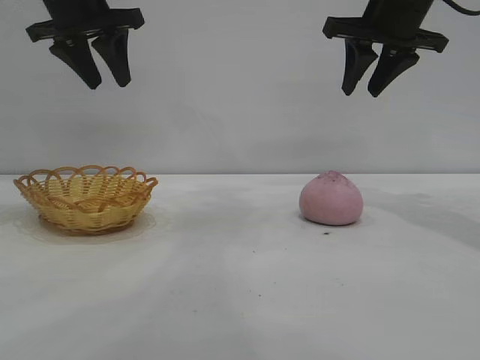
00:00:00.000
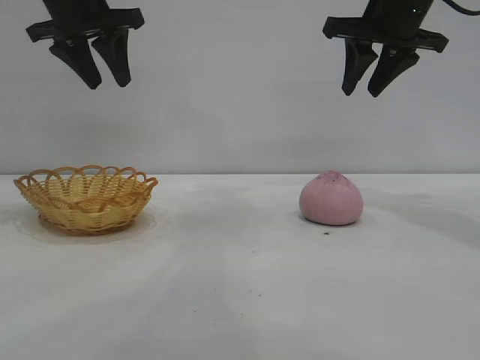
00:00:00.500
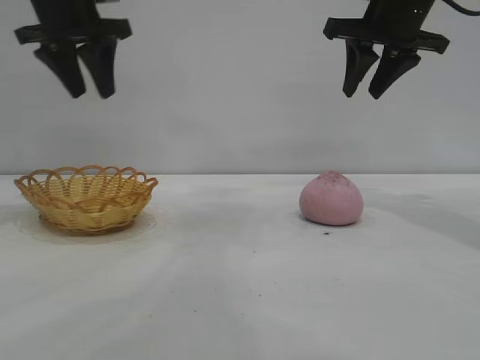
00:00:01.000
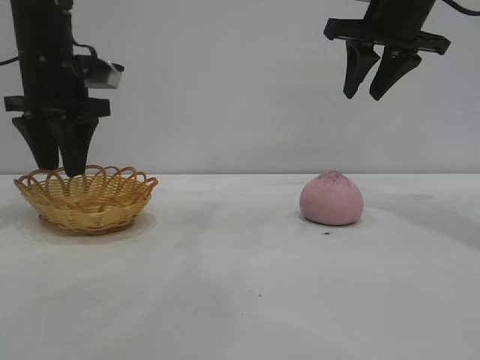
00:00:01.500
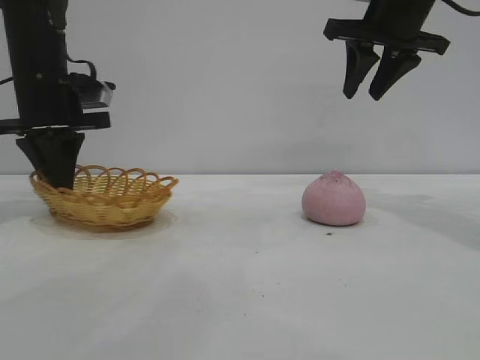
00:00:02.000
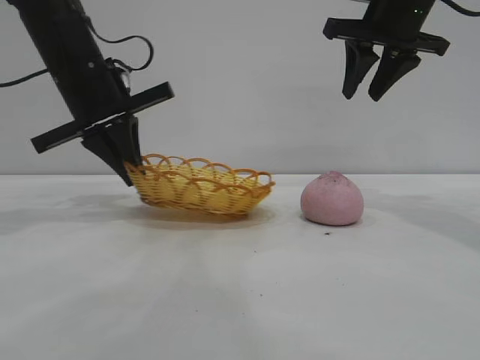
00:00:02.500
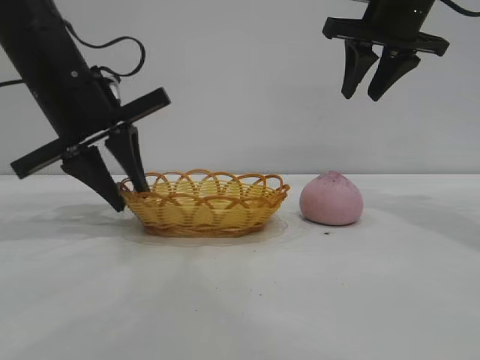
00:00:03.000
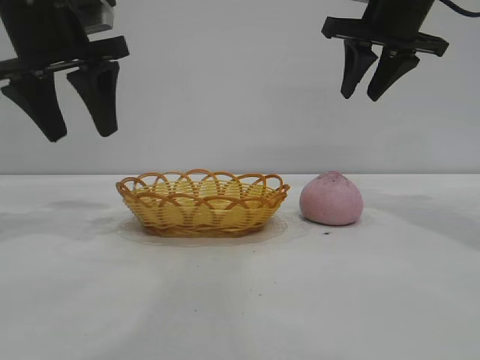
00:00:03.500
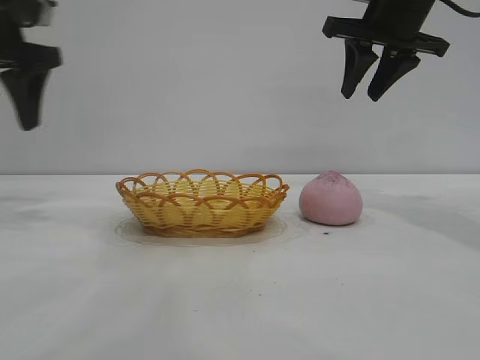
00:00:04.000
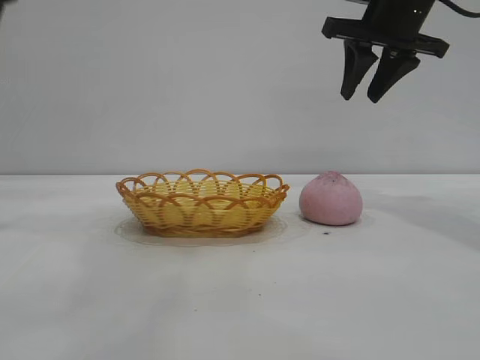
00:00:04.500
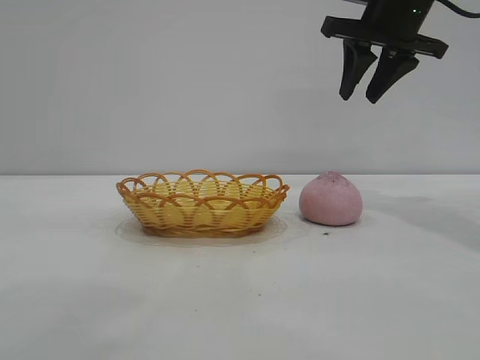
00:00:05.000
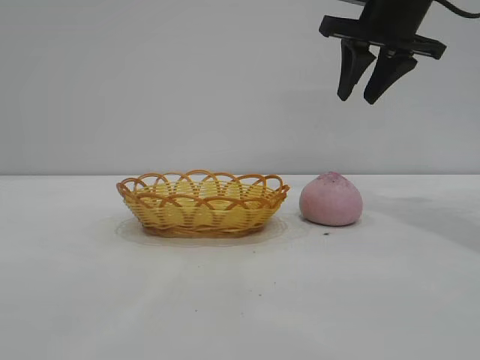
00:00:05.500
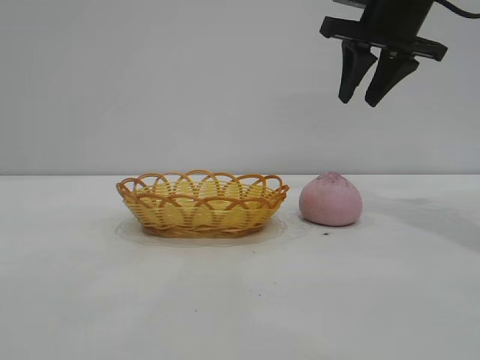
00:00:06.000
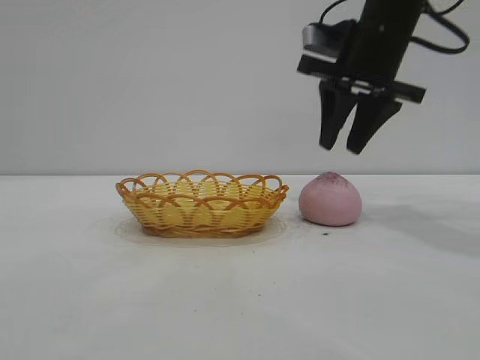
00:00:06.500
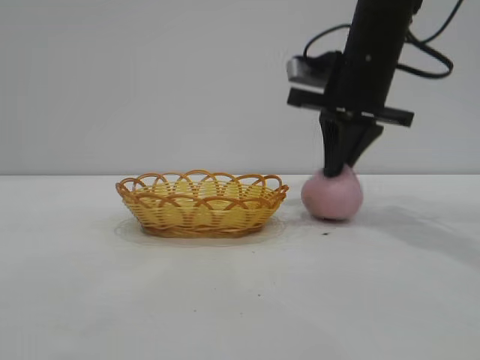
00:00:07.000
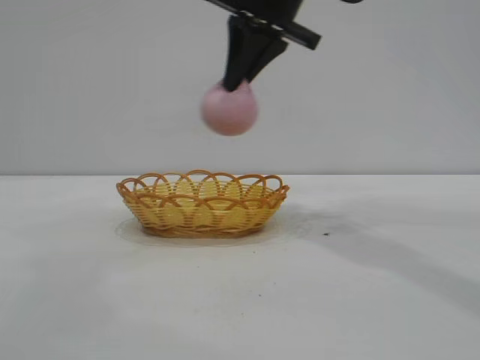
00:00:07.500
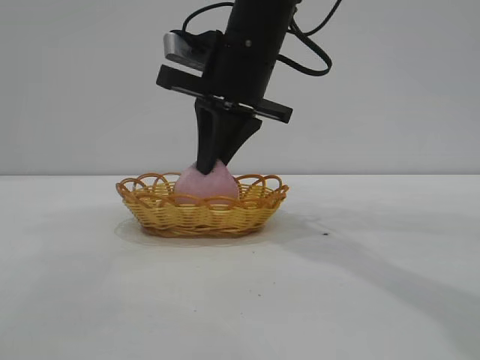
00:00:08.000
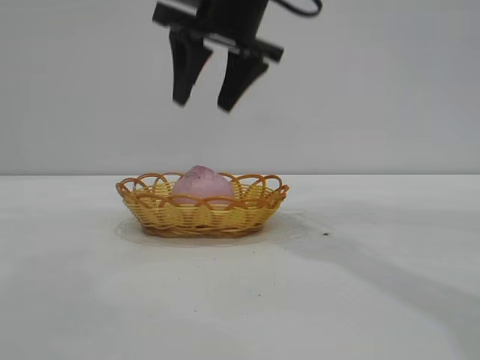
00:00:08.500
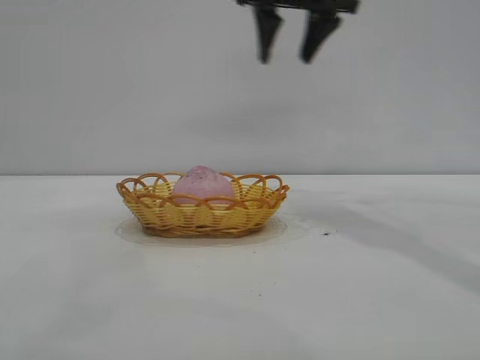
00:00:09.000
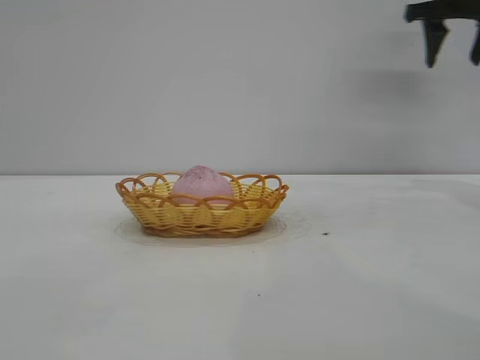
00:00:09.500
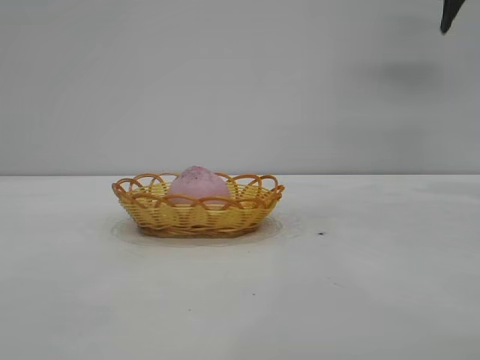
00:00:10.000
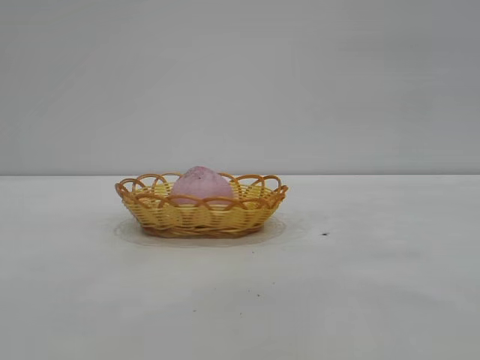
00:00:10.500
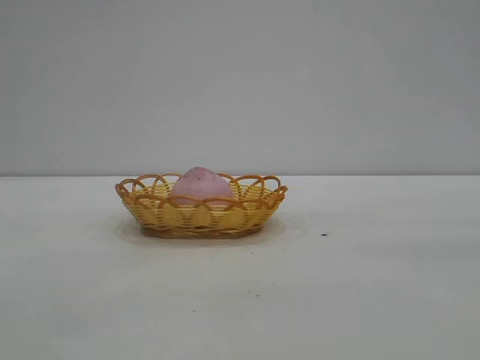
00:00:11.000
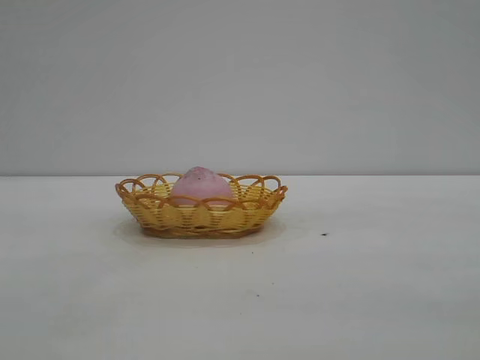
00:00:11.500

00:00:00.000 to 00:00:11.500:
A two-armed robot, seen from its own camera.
Task of the whole recording: pick up the peach and put it into the basket.
Step, 00:00:00.000 to 00:00:03.500: Move the basket to the center of view.
Step, 00:00:04.000 to 00:00:07.000: Pick up the peach.
Step, 00:00:07.500 to 00:00:08.500: place the peach into the basket.

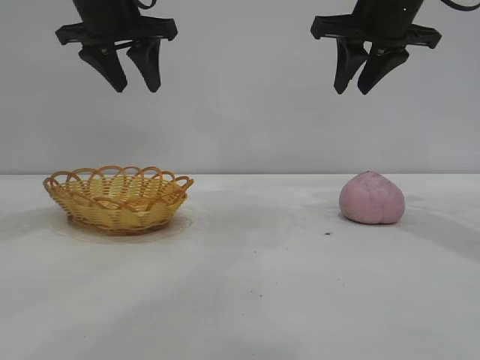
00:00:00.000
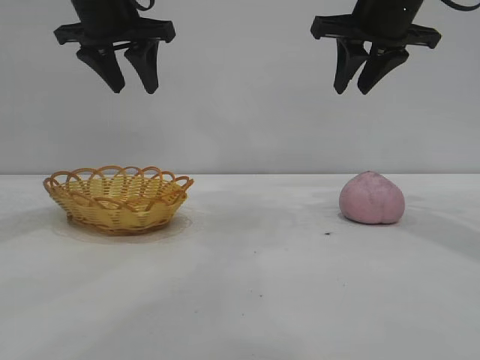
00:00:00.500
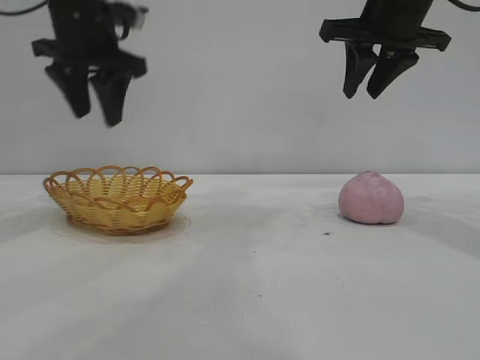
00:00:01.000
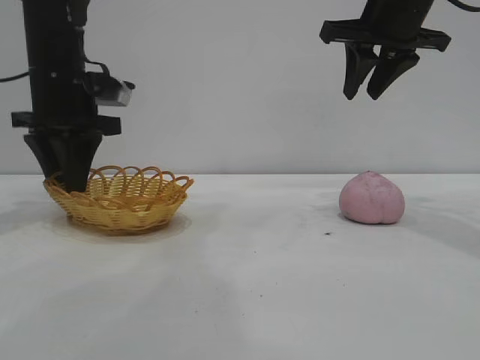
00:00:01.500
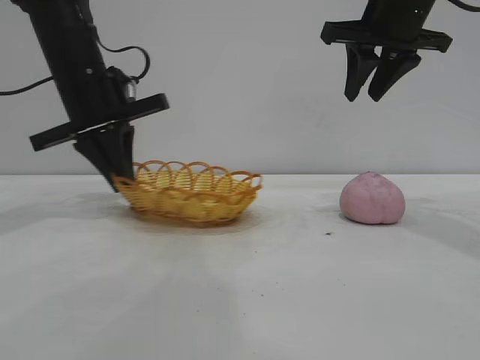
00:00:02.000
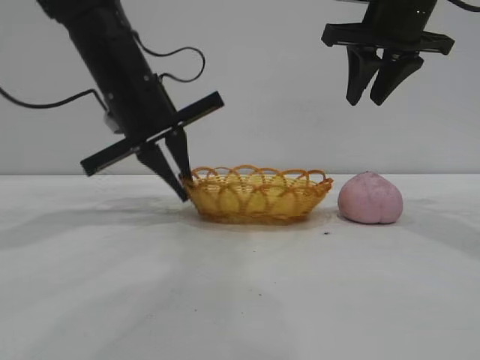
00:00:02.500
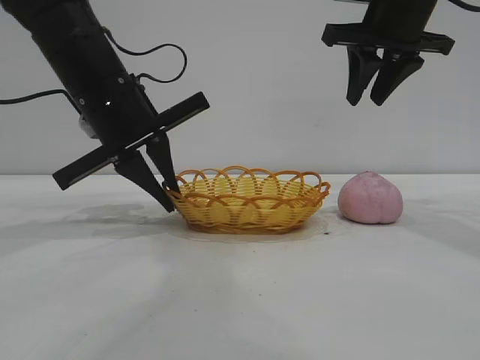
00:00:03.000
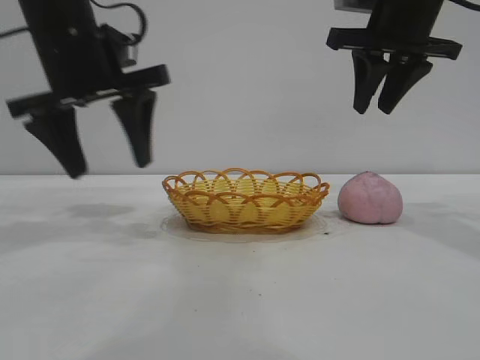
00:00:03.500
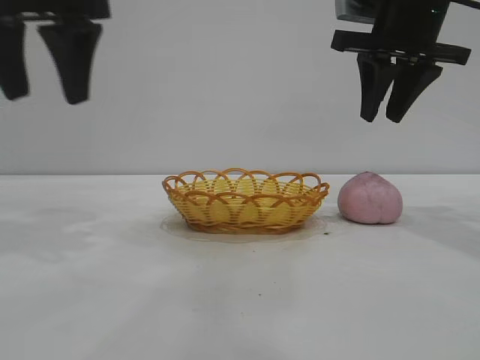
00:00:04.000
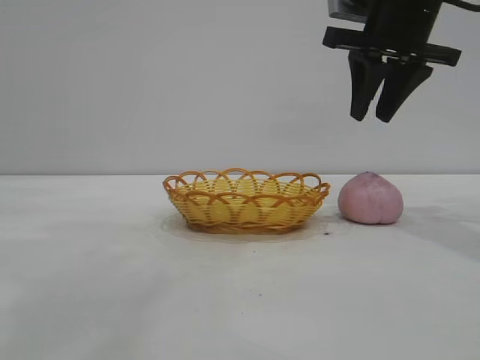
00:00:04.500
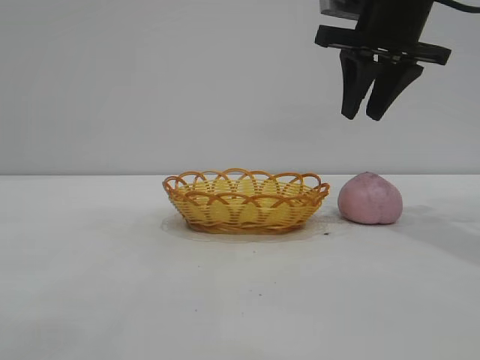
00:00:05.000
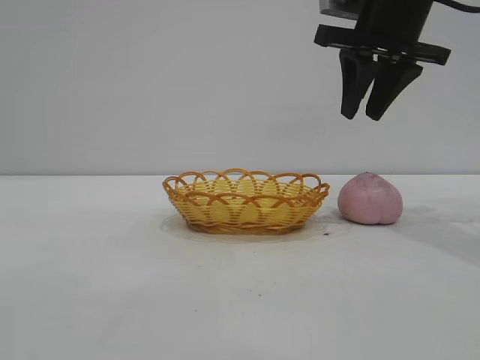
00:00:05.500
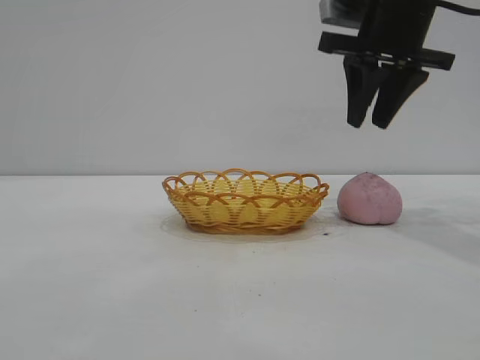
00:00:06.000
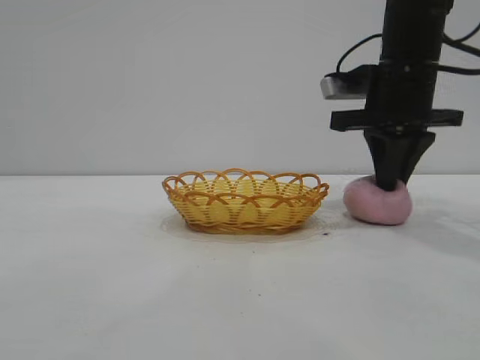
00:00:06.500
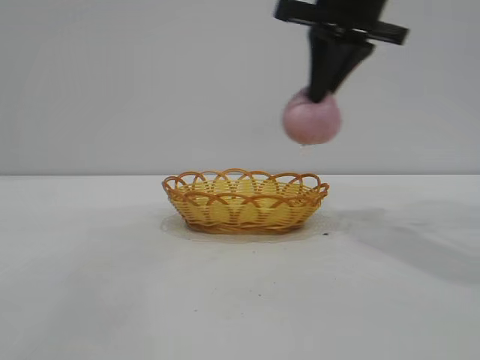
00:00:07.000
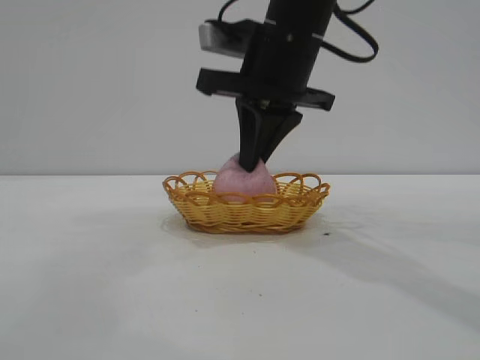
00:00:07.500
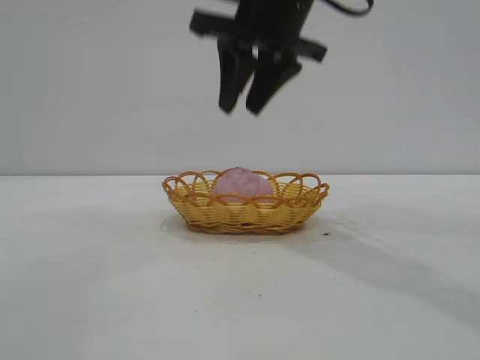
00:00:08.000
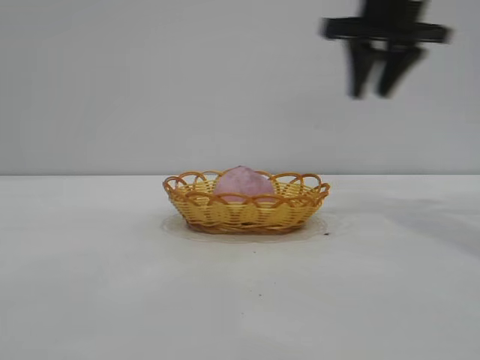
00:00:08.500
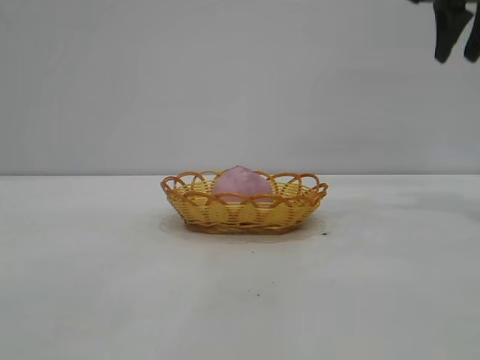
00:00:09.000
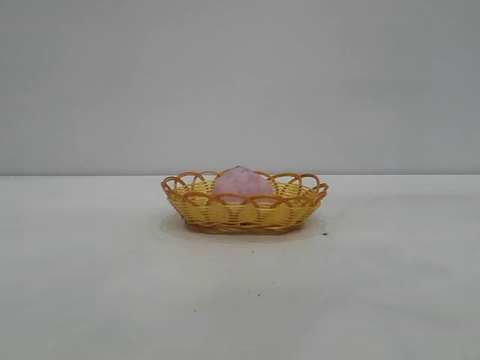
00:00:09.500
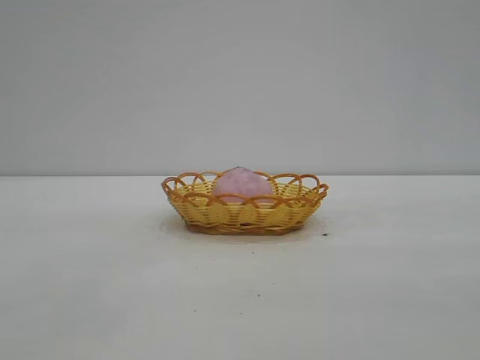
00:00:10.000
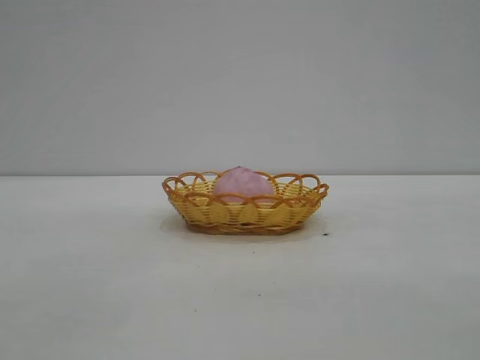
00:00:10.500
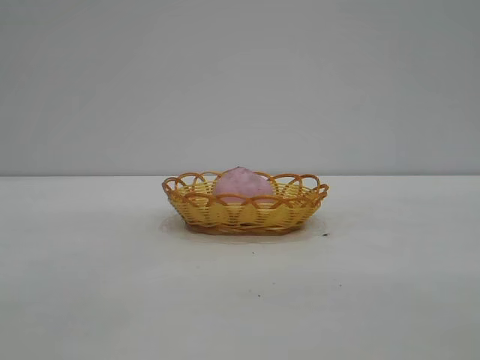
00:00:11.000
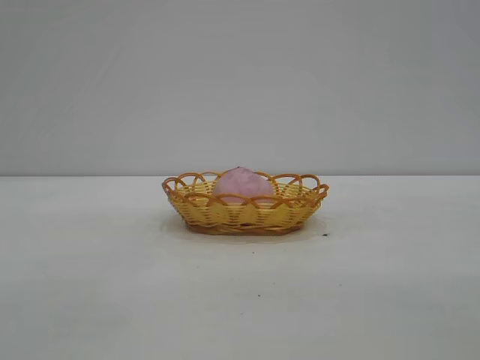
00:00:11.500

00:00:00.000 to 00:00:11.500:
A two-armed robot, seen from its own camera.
Task of the whole recording: pick up the peach and put it into the basket.
Step, 00:00:00.000 to 00:00:03.500: Move the basket to the center of view.
Step, 00:00:04.000 to 00:00:06.500: Pick up the peach.
Step, 00:00:07.000 to 00:00:08.000: place the peach into the basket.

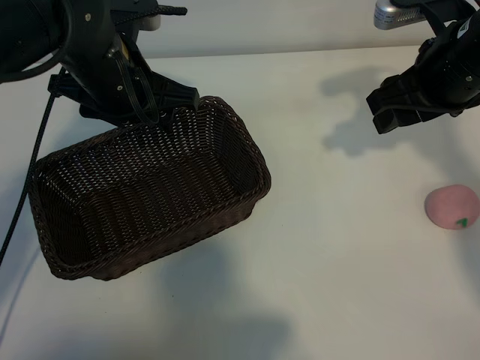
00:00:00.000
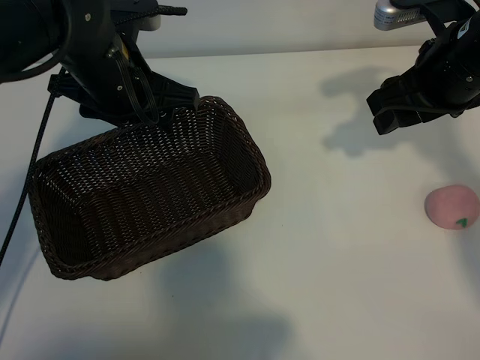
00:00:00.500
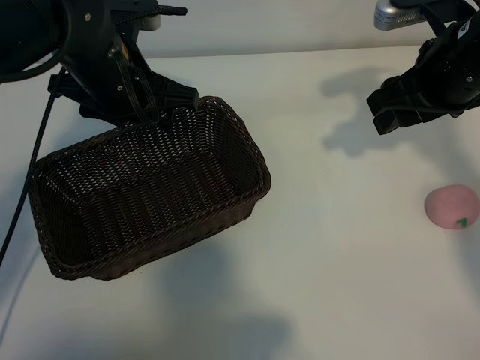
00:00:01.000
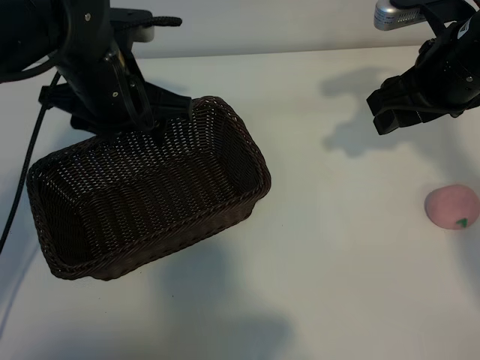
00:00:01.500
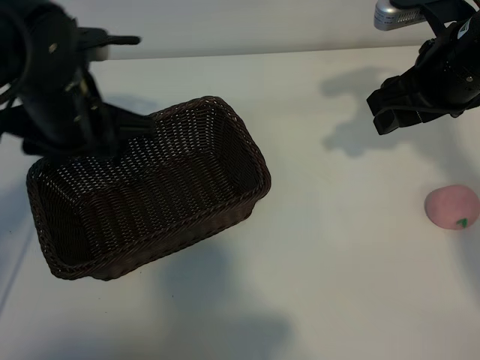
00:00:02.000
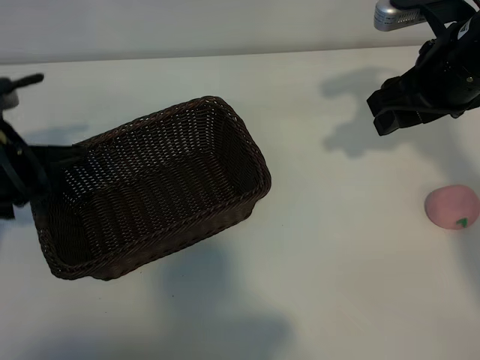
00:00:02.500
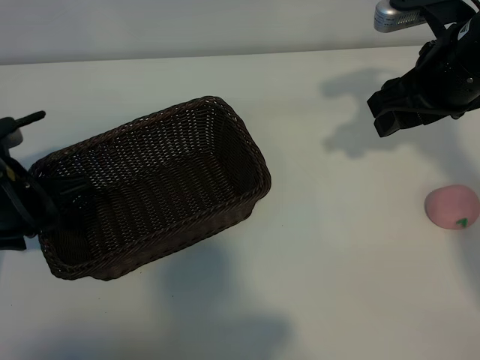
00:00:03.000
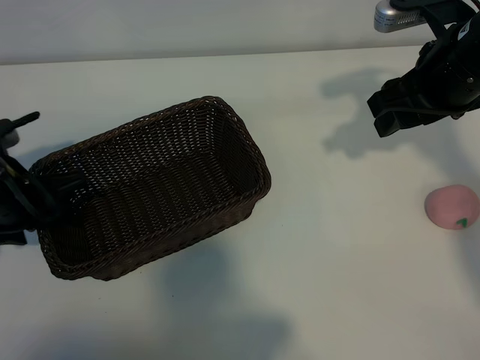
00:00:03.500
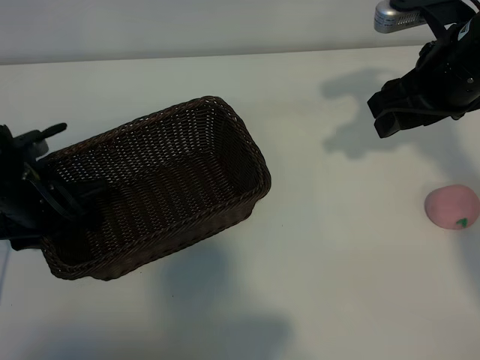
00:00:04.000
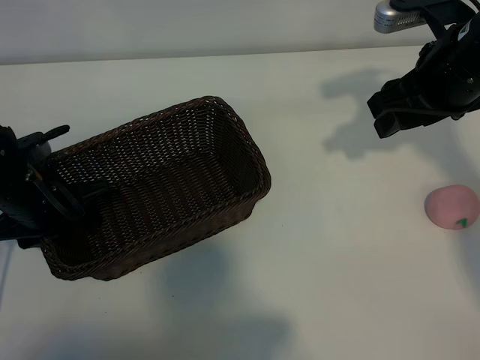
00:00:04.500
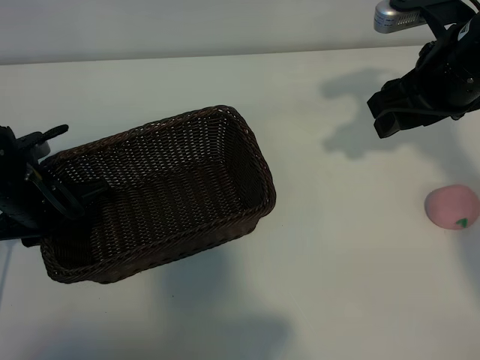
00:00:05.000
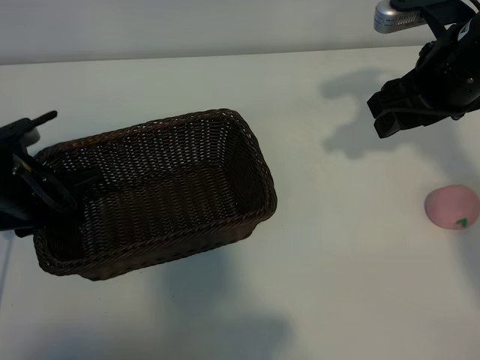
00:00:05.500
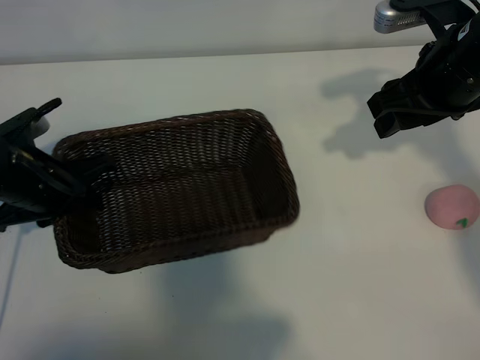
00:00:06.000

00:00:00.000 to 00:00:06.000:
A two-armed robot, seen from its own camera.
Task of the whole recording: pick up the peach and put it into the basket.
Step, 00:00:01.500 to 00:00:04.500: Grasp the basket with left gripper.
